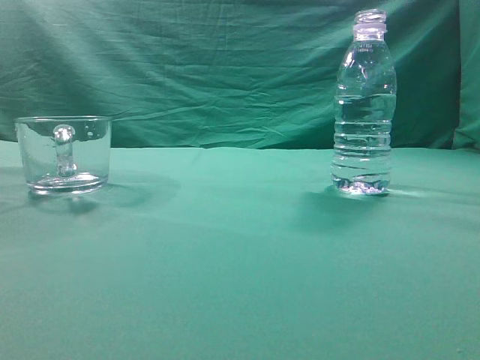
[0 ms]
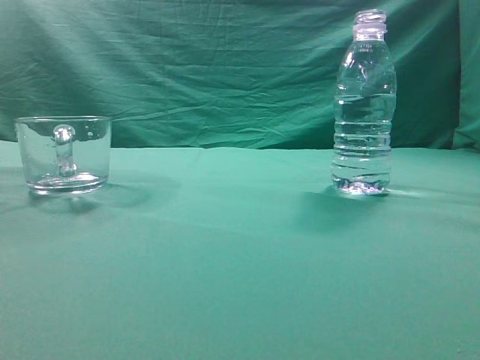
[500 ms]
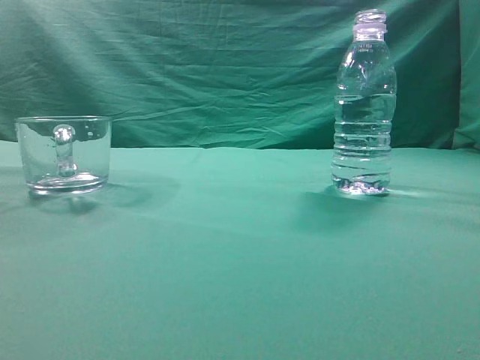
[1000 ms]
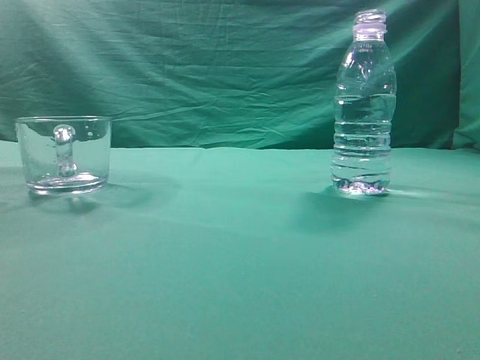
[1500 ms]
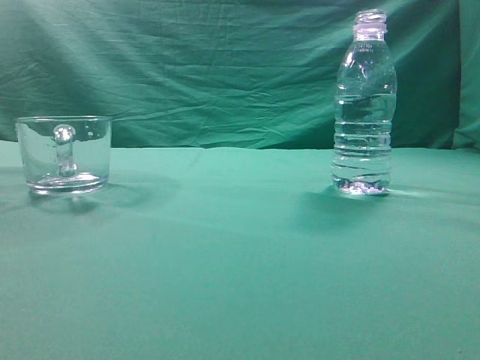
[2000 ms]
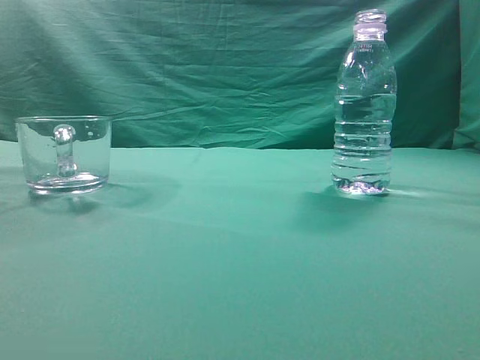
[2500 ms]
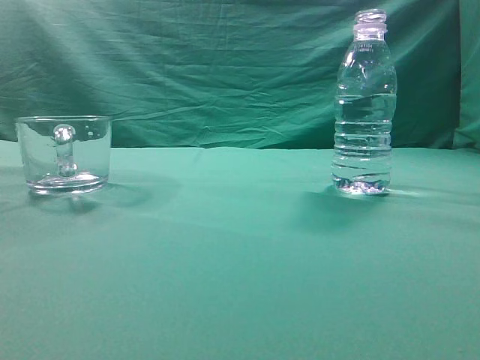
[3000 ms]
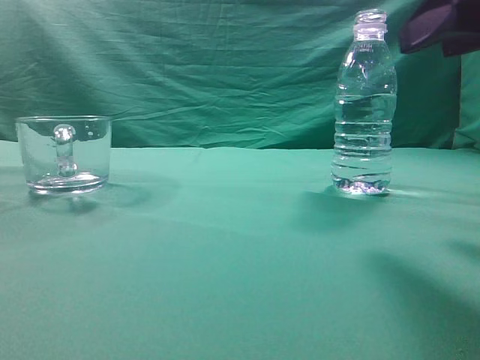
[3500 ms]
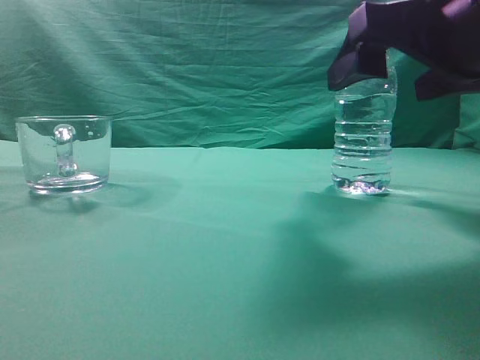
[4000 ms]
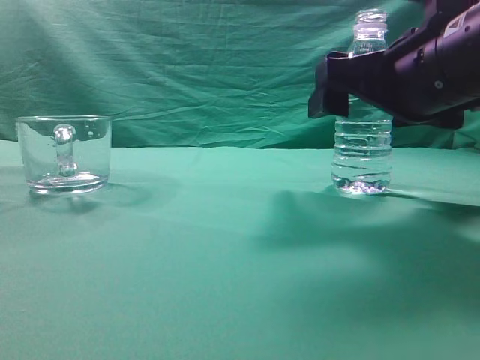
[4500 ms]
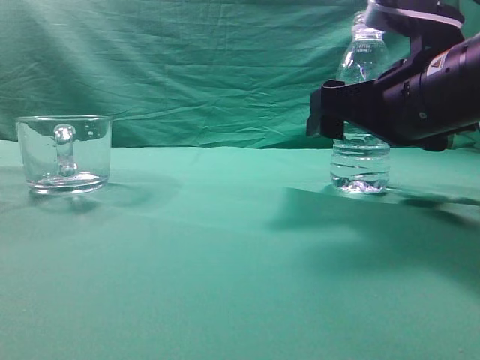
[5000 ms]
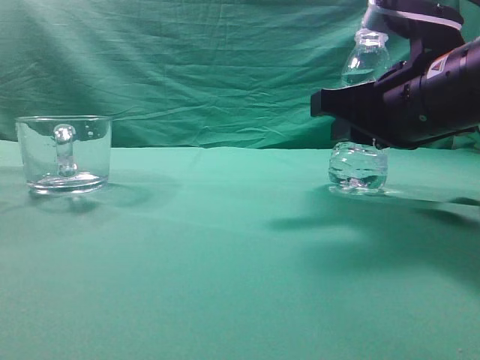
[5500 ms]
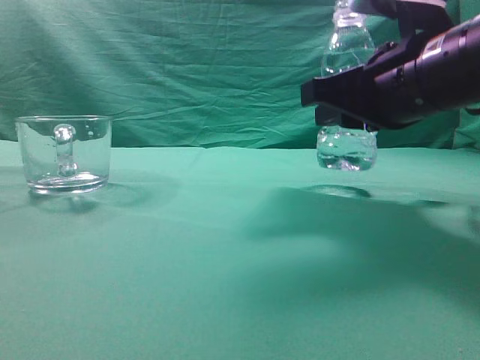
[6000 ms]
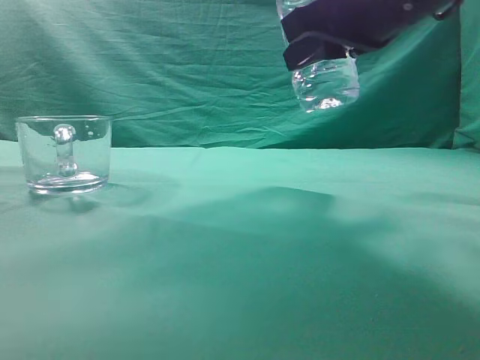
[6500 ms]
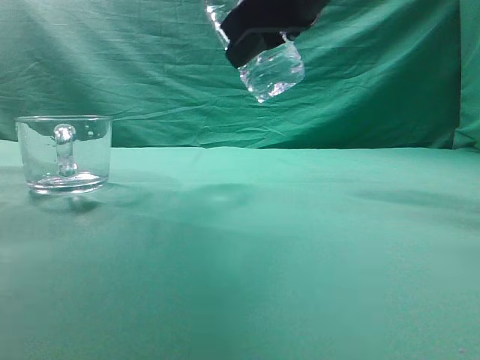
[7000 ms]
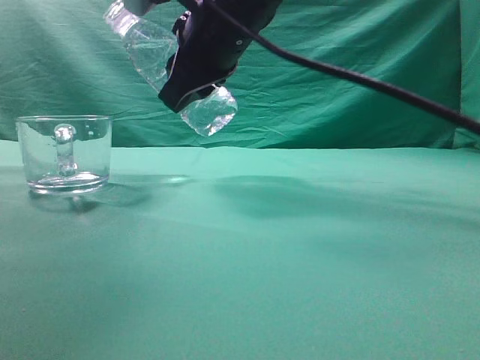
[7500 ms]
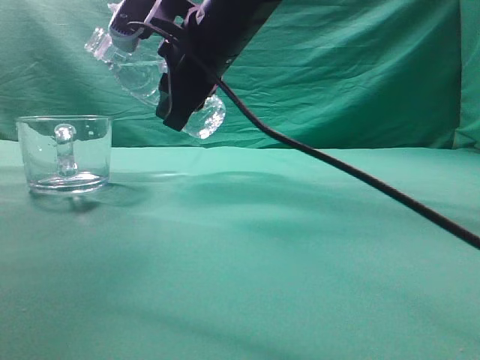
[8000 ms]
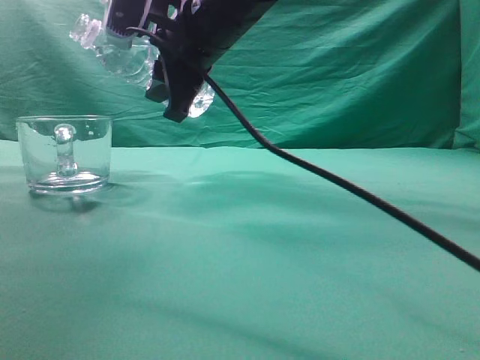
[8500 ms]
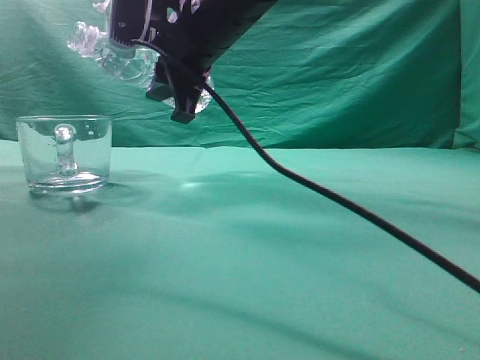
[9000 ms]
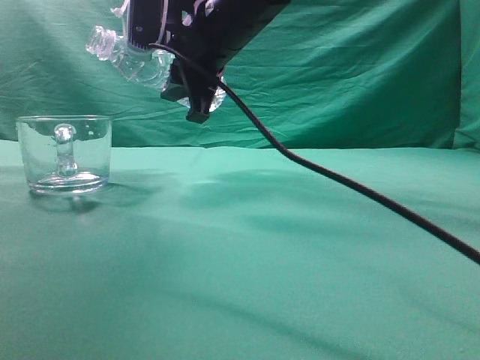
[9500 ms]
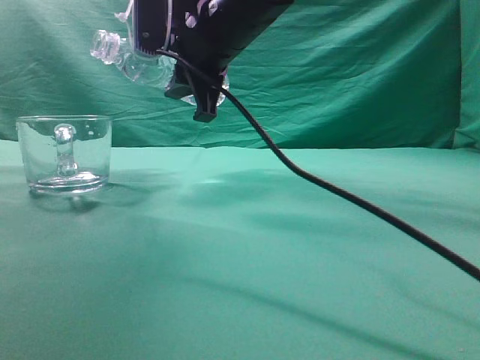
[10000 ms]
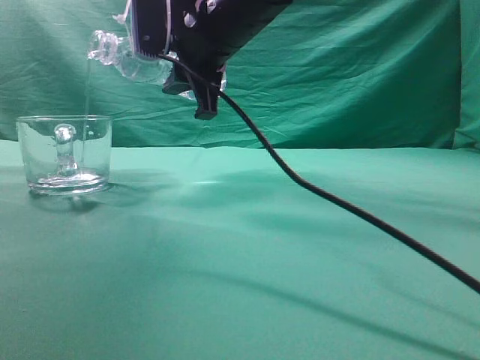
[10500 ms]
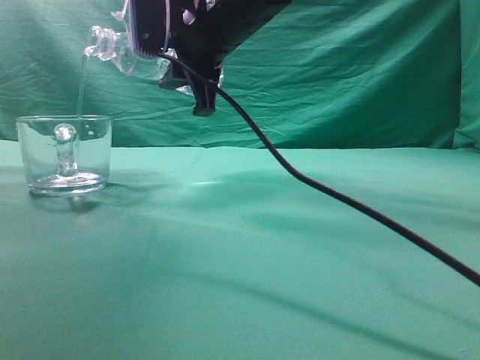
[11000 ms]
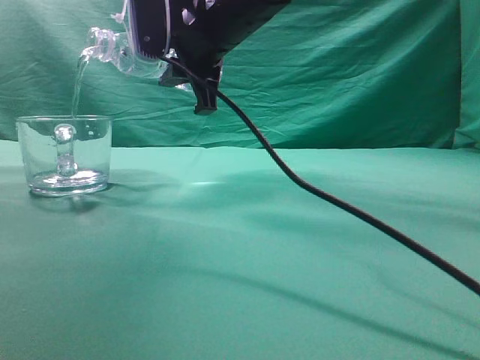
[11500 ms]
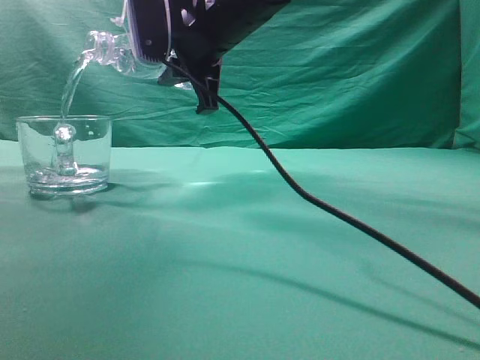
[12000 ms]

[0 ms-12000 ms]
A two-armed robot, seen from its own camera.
Task of the whole recording: pick up the water bottle and pour the water in it into the glass.
Step, 0 ms to 6000 ms: Grasp the mineral water bottle.
2000 ms to 4000 ms: The right gripper shifts about 25 cm forward, to the left and downward, and opens up.
4000 ms to 6000 ms: The right gripper shifts approximately 5 cm forward, and closes.
6000 ms to 8000 ms: The right gripper heads to the left and forward, covering about 20 cm.
10000 ms to 12000 ms: There are only small adjustments of the grippers.

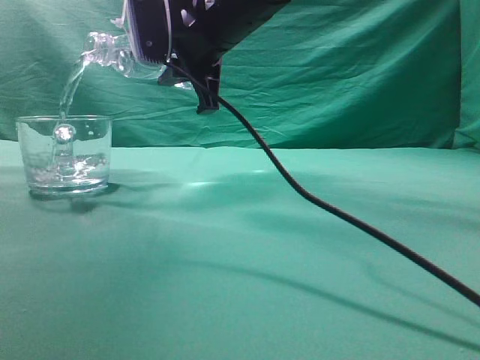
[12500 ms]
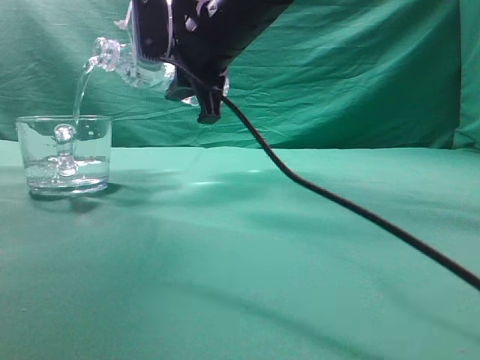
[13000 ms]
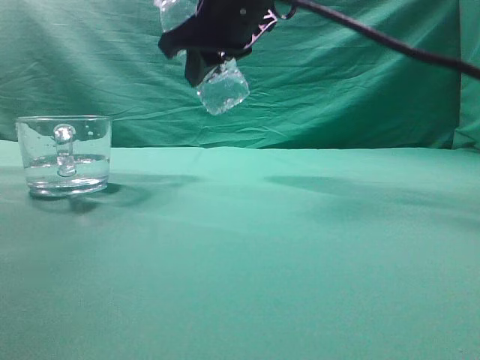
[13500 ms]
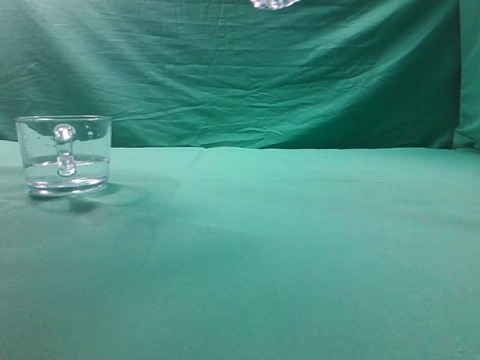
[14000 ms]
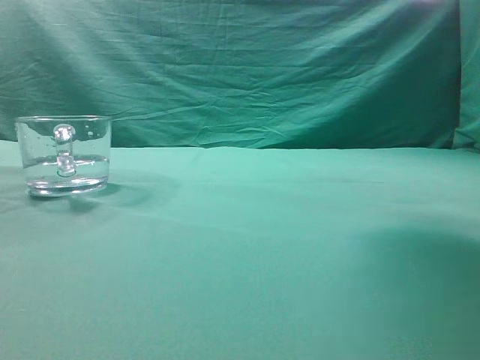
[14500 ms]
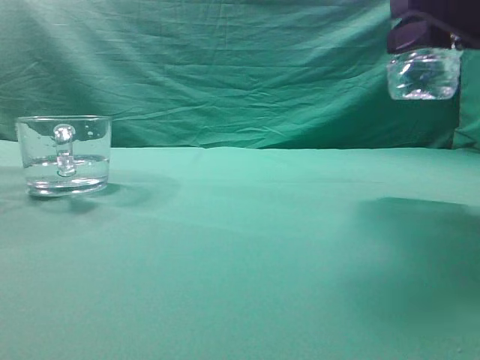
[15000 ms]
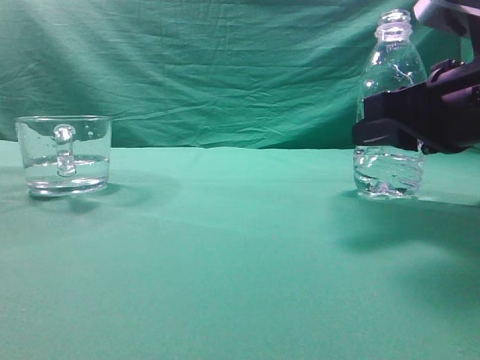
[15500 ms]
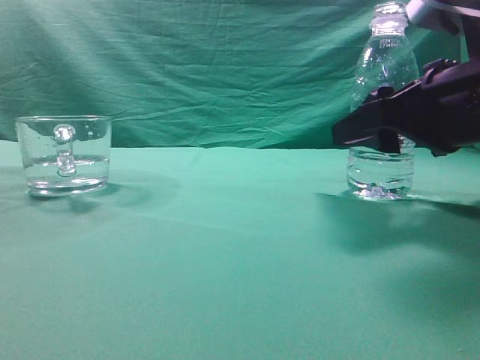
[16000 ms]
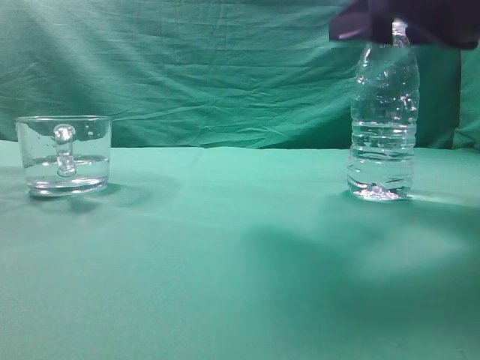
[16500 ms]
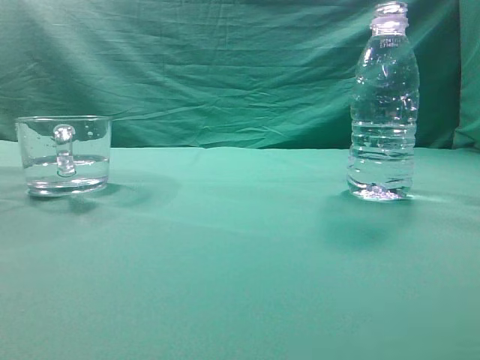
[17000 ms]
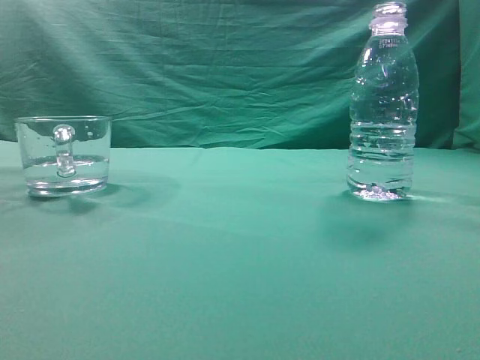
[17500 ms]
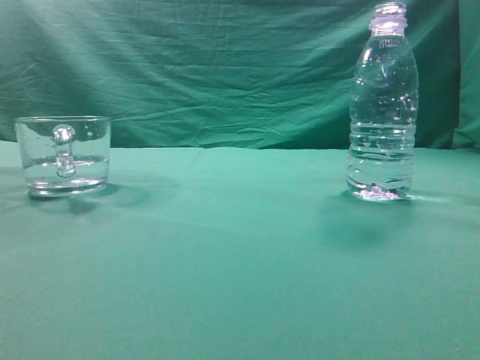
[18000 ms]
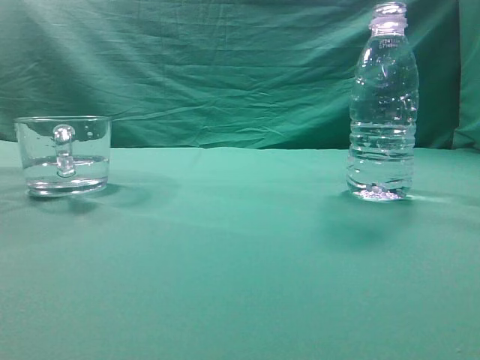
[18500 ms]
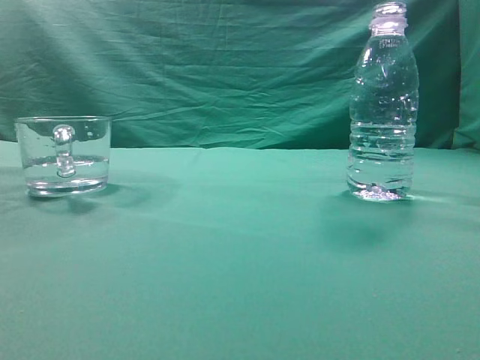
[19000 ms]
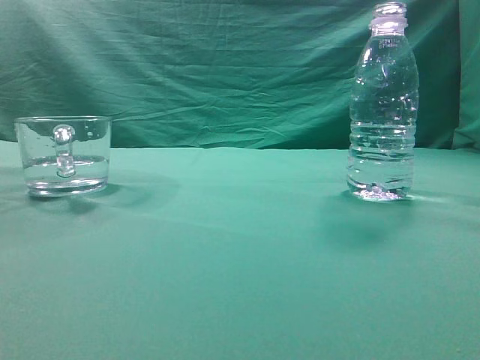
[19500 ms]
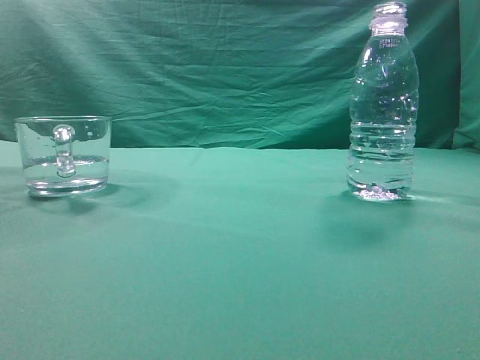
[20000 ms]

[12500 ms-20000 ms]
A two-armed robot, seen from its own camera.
Task of the whole recording: pick up the water bottle and pour the water in it into the glass.
12500 ms to 14500 ms: The right gripper is displaced to the right and backward by roughly 30 cm.
14500 ms to 16500 ms: The right gripper travels downward by about 5 cm, and opens its fingers.
16500 ms to 18000 ms: The right gripper shifts about 25 cm backward, upward and to the right, and closes up.

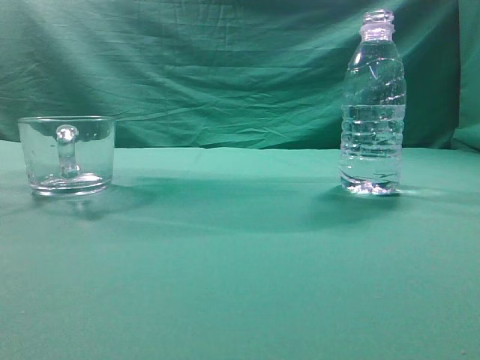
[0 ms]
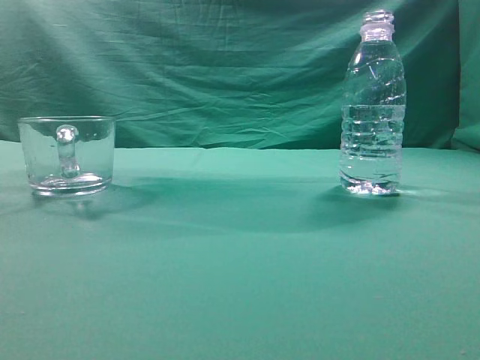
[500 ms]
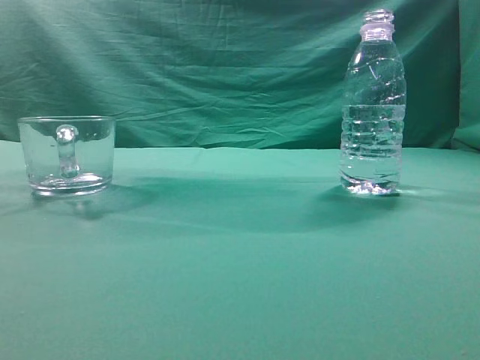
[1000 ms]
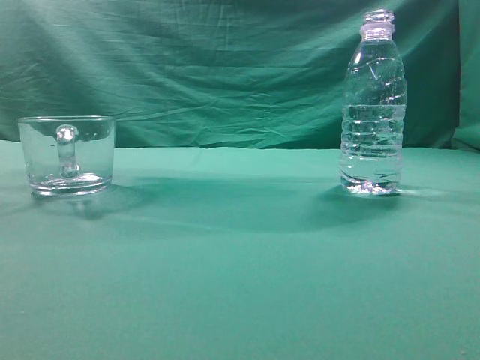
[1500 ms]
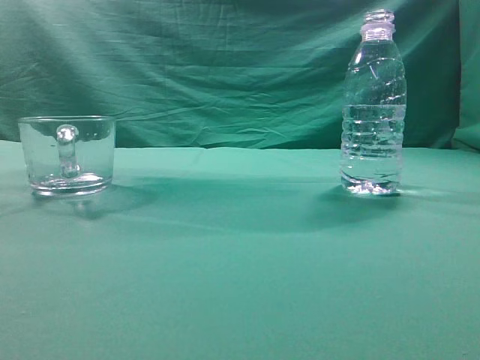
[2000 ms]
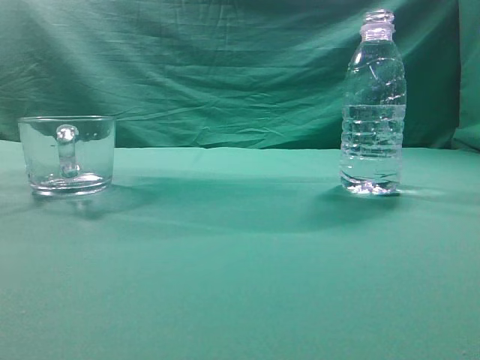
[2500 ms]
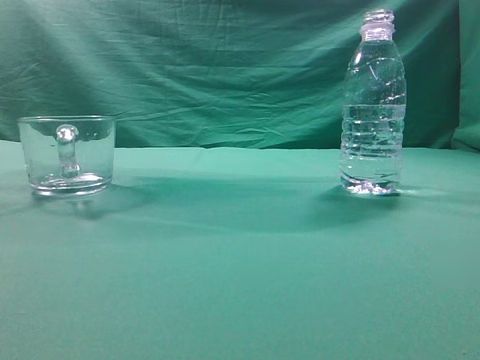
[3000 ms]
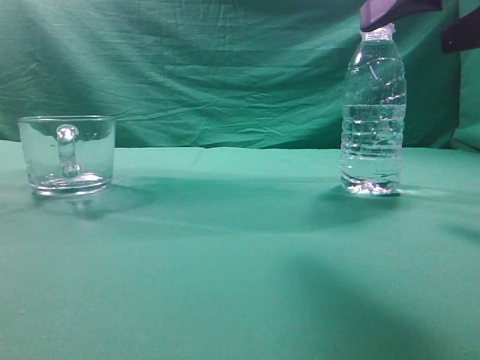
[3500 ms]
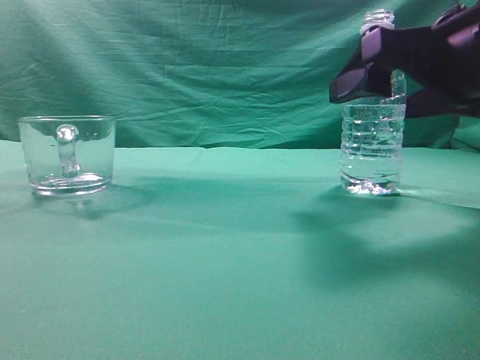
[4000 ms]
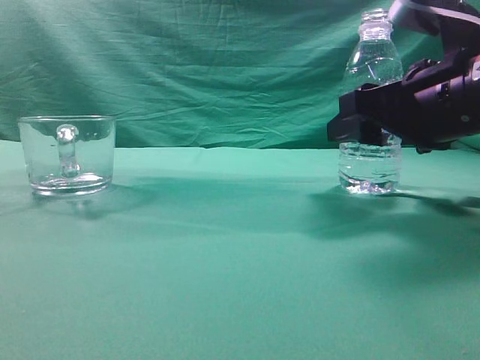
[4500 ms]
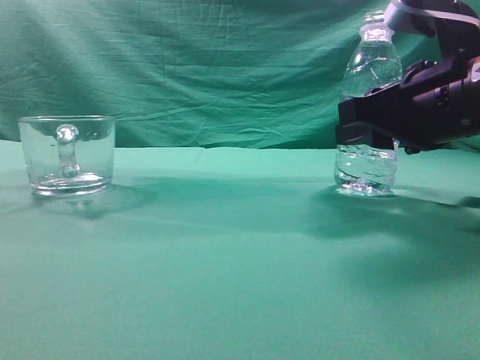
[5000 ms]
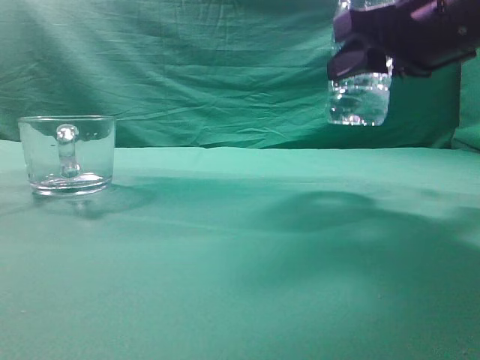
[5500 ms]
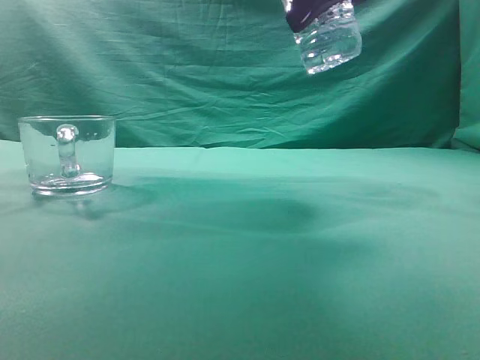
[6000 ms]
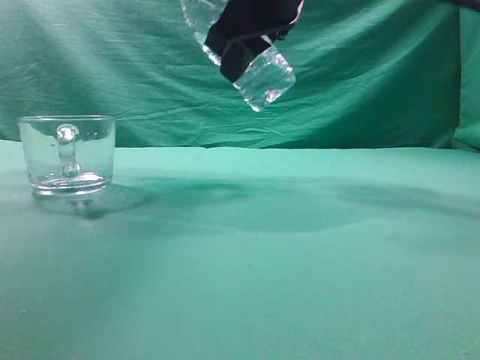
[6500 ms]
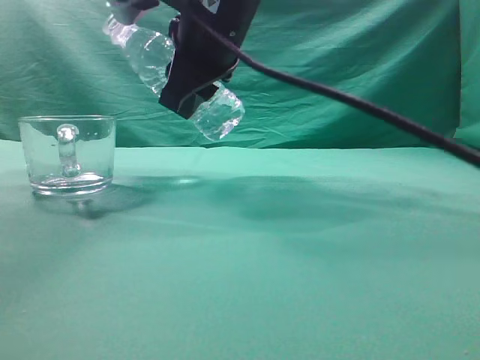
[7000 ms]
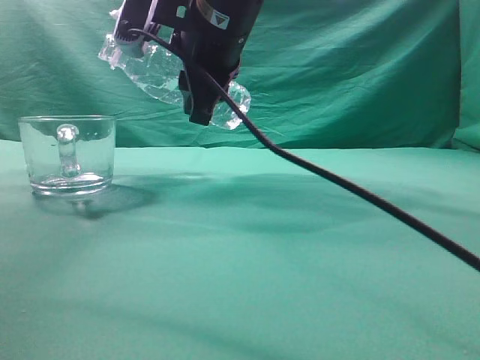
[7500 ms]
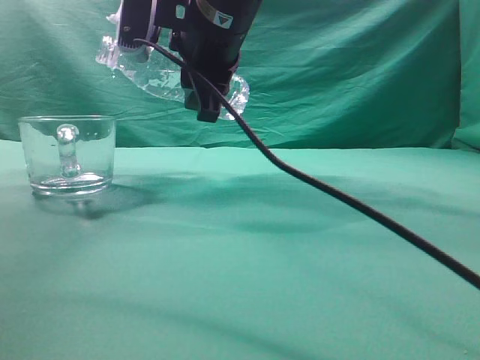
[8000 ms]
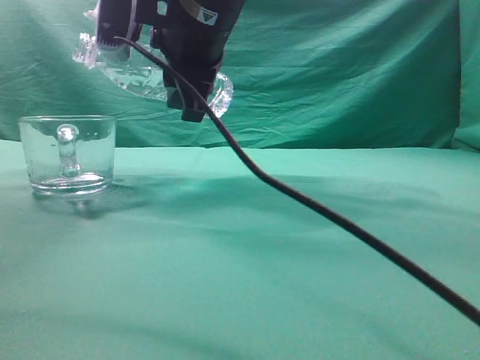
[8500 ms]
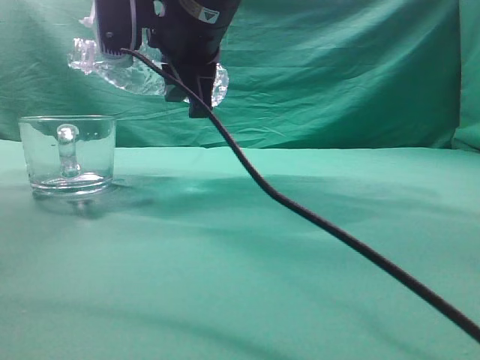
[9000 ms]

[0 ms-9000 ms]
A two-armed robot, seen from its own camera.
Task of the whole recording: pick up the water bottle and pour the water in it into the glass.
Step, 0 ms to 5000 ms: Grasp the mineral water bottle.
2000 ms to 4500 ms: The right gripper heads forward, downward and to the left, covering roughly 30 cm, and opens.
4500 ms to 7000 ms: The right gripper shifts roughly 20 cm to the left and upward.
